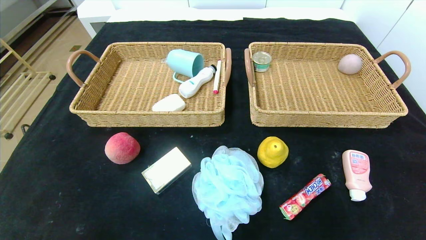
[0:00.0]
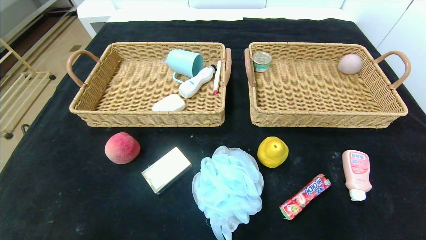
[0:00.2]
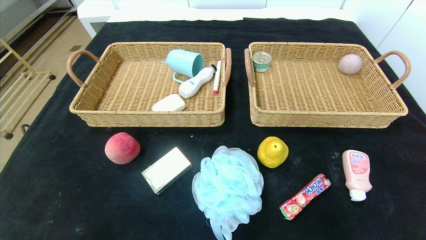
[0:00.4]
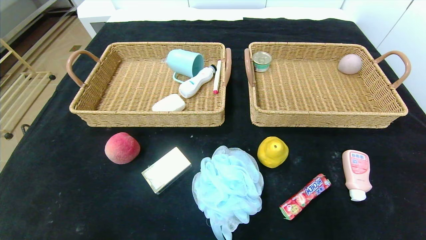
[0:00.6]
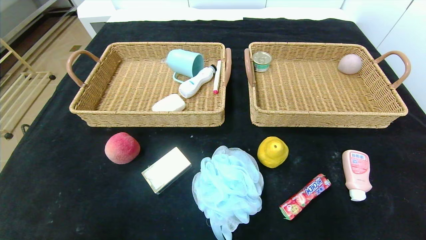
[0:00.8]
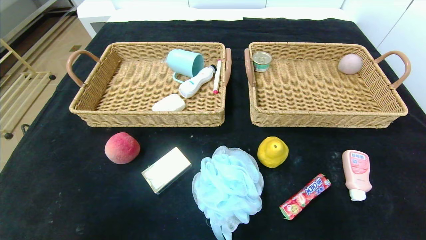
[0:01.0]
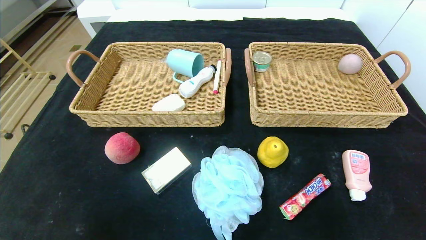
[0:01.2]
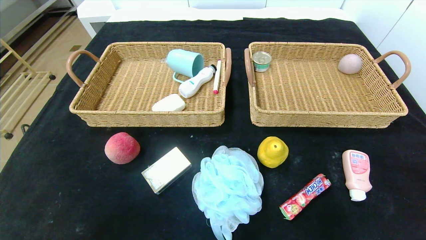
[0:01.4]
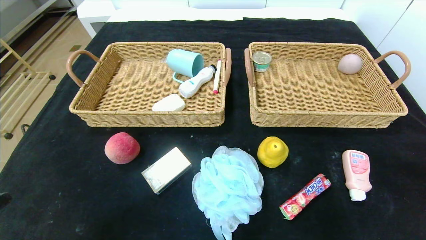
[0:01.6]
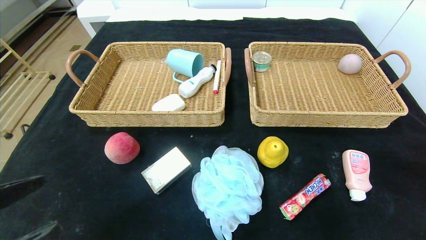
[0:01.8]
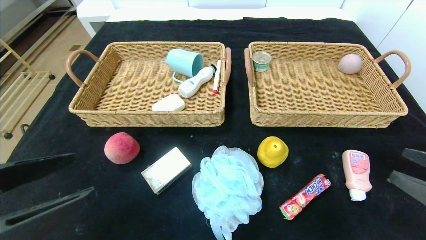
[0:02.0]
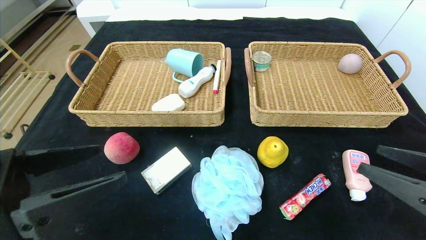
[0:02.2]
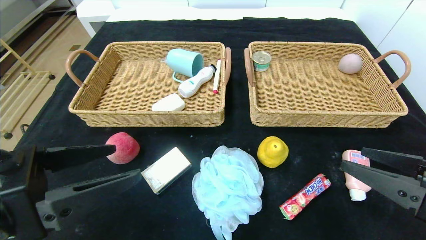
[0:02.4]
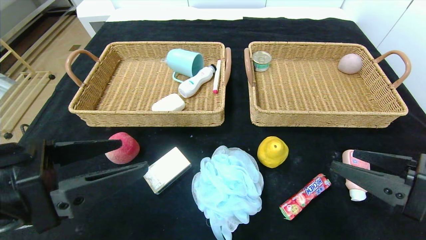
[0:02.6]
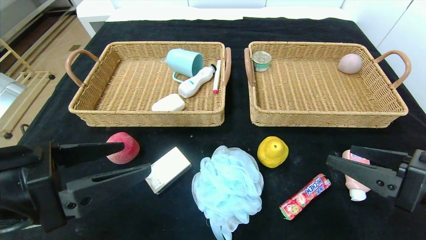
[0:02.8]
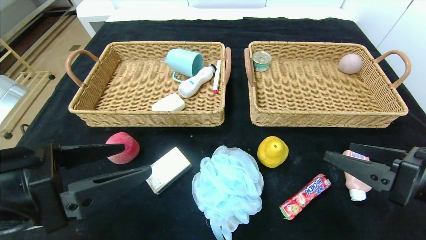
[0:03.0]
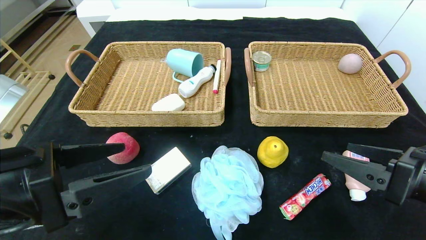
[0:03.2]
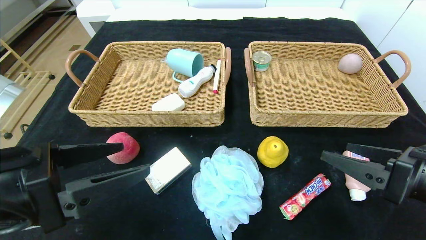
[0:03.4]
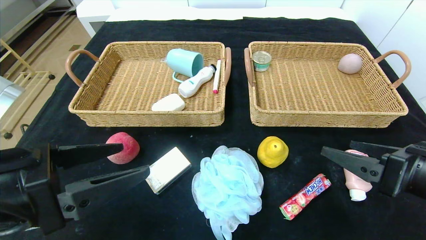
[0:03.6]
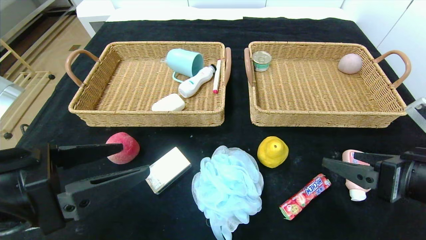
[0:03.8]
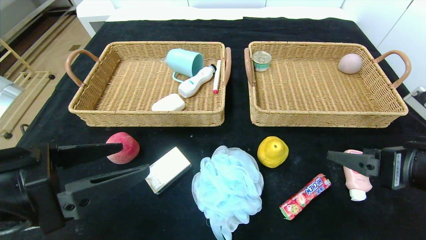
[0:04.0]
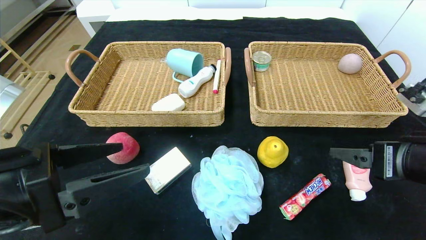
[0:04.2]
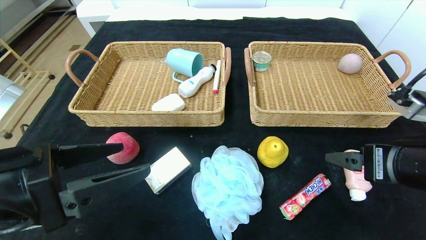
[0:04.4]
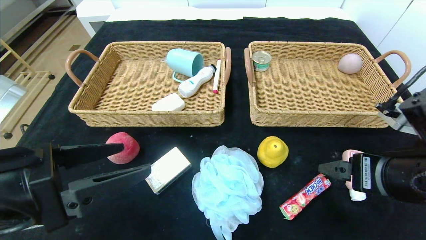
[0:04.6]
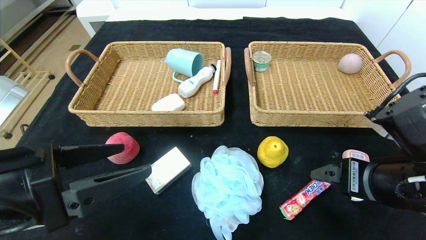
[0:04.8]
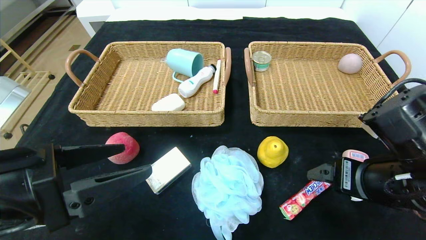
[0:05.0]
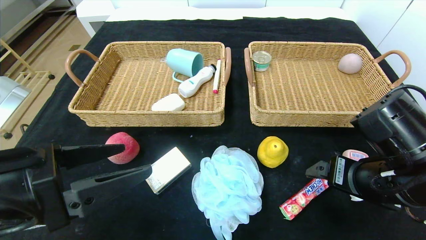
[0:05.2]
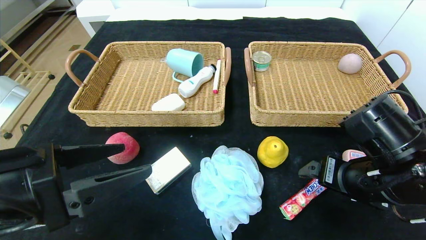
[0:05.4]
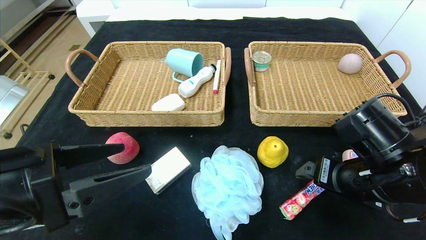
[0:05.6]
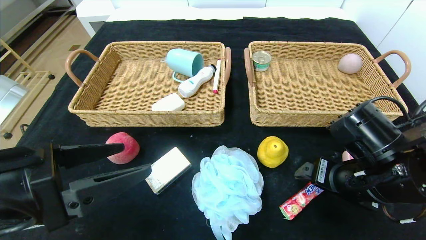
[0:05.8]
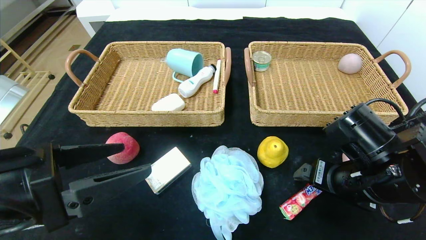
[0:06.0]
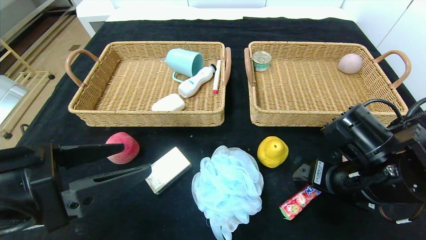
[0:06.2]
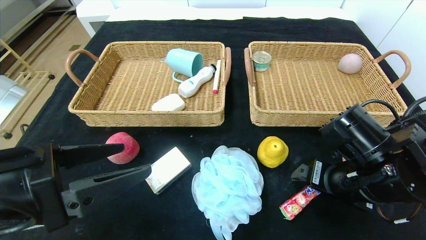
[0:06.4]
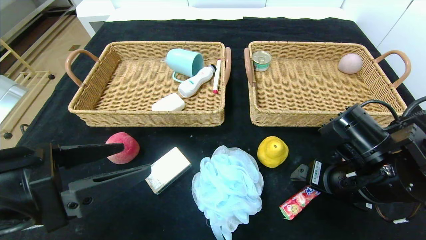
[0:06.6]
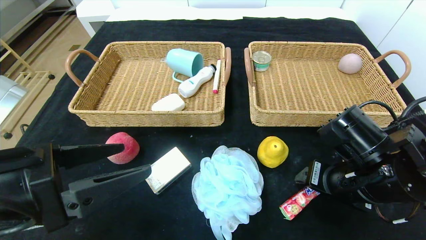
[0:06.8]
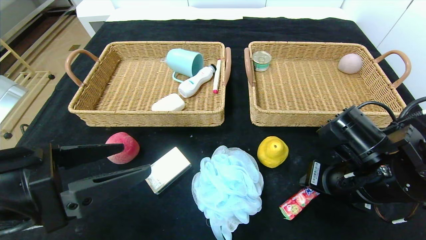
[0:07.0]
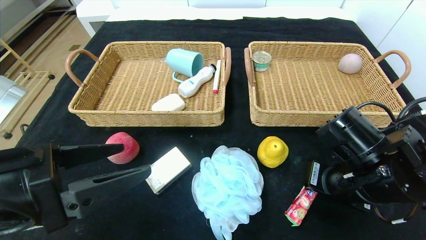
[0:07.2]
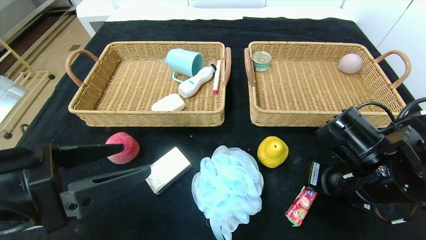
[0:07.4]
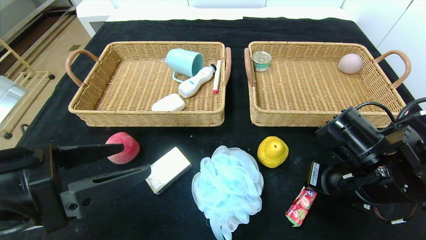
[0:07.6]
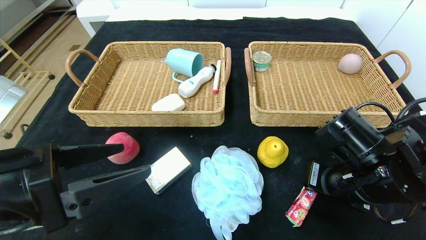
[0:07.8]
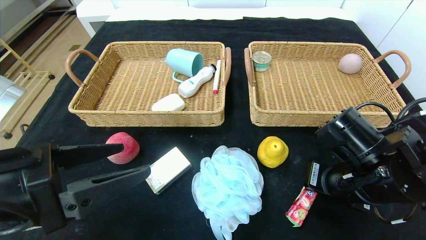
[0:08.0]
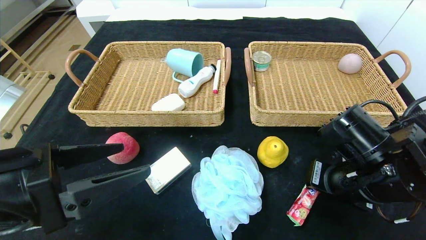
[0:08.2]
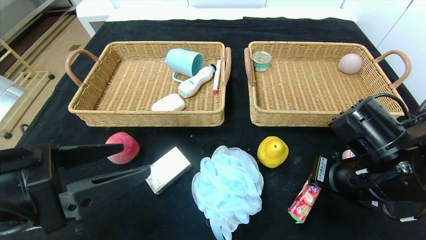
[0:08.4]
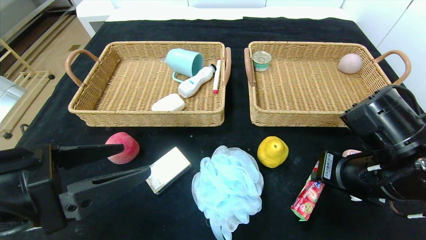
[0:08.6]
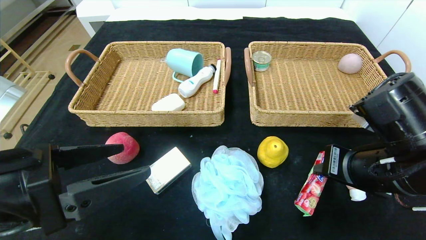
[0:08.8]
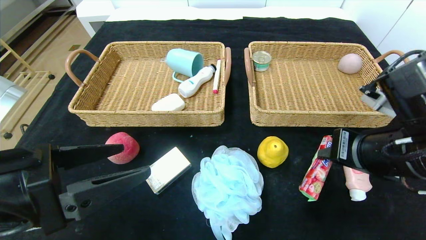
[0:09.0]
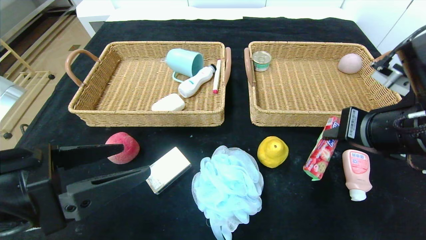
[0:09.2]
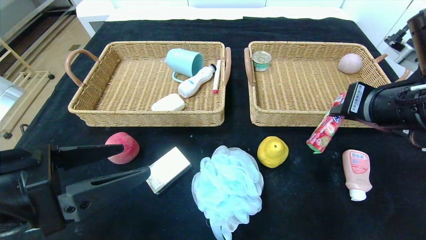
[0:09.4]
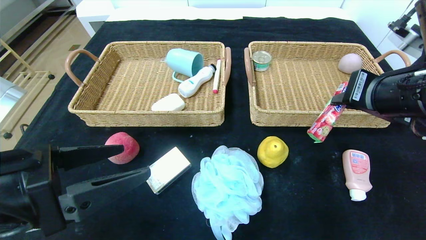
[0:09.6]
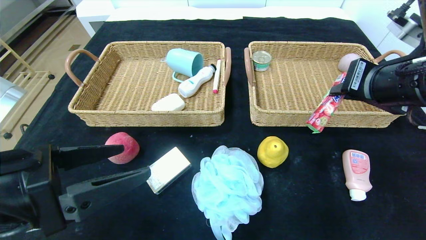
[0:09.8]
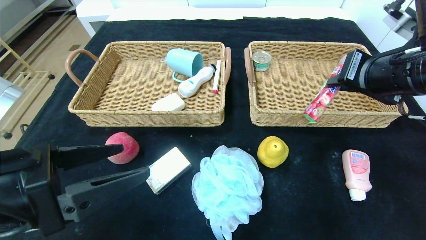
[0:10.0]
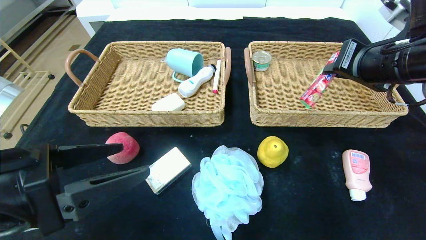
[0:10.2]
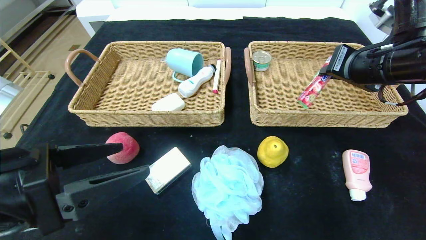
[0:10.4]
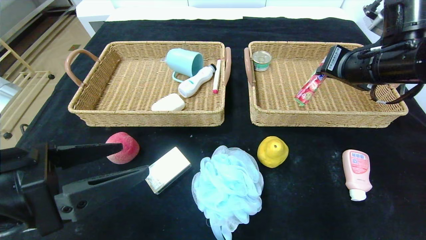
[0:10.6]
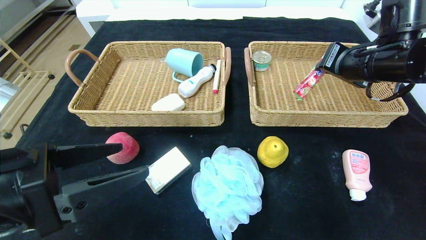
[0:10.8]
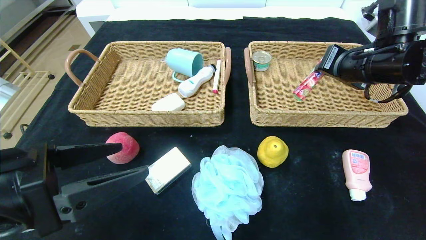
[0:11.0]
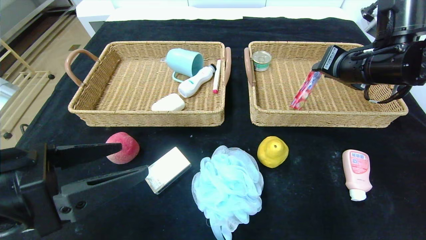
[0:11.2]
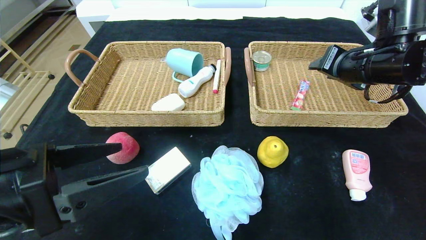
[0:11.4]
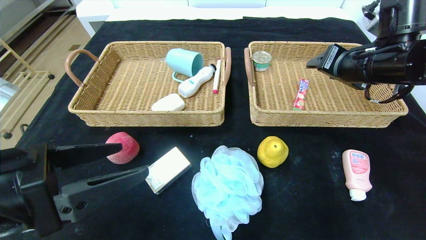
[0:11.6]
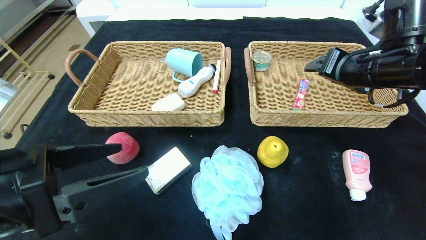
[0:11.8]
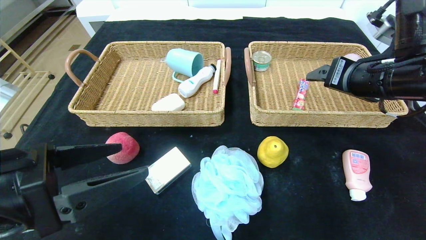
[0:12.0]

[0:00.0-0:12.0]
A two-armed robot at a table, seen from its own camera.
0:01.6 to 0:03.0: The left gripper travels forward and to the right by approximately 10 cm. The right gripper is displaced forward and to the left by roughly 15 cm.
0:04.4 to 0:06.0: The right gripper shifts about 5 cm downward.
0:06.0 to 0:07.6: The right gripper closes up.
0:07.6 to 0:09.0: The right gripper travels upward by about 5 cm.
0:09.0 to 0:10.4: The right gripper is displaced forward and upward by approximately 10 cm.
0:10.4 to 0:12.0: The right gripper opens.

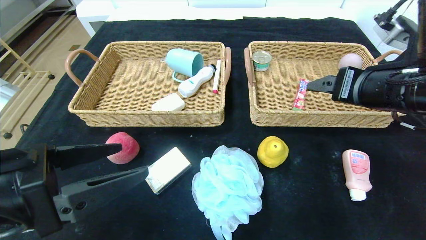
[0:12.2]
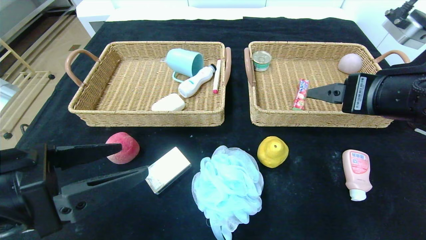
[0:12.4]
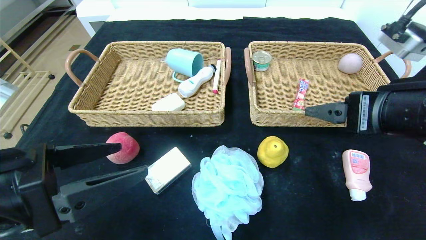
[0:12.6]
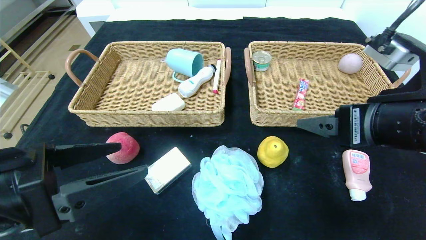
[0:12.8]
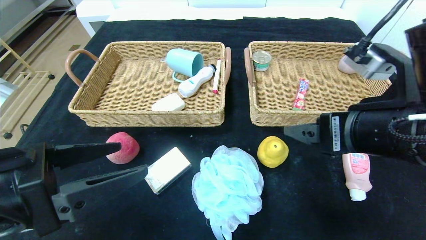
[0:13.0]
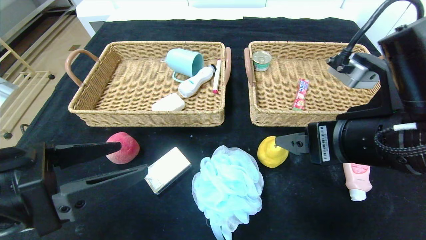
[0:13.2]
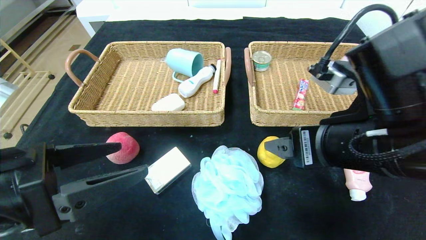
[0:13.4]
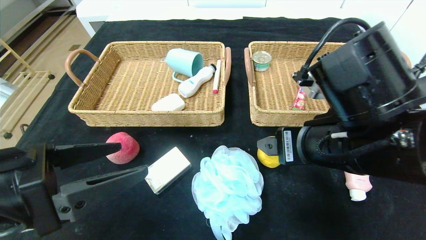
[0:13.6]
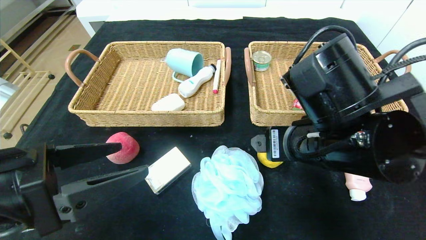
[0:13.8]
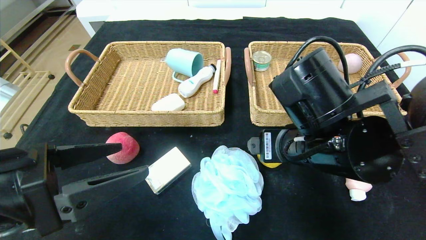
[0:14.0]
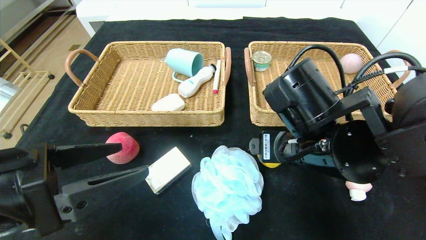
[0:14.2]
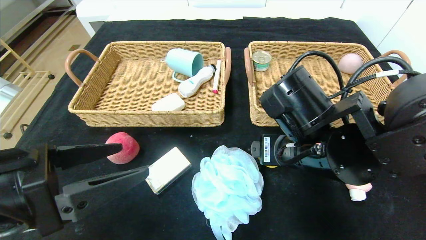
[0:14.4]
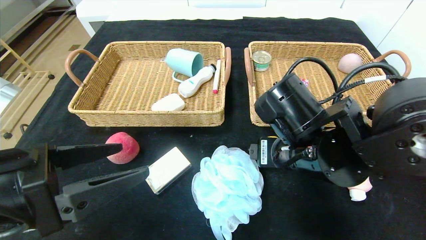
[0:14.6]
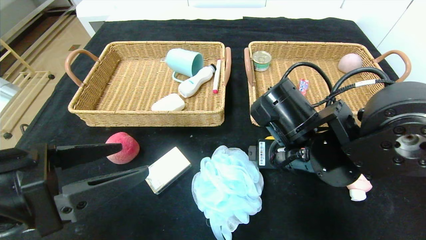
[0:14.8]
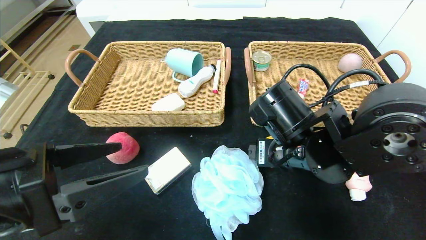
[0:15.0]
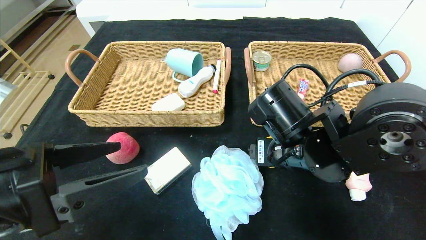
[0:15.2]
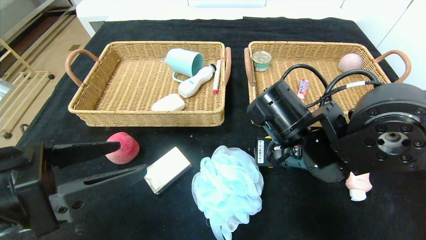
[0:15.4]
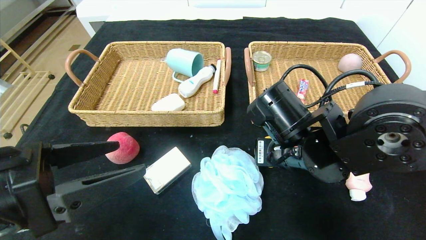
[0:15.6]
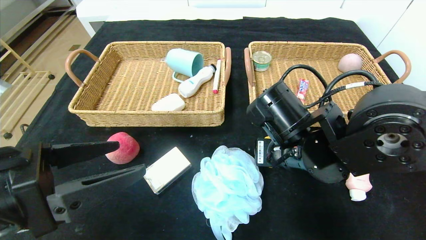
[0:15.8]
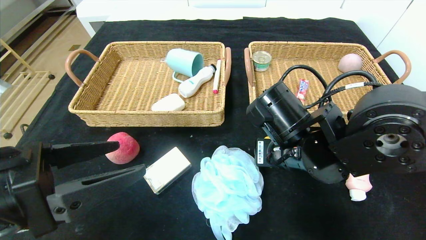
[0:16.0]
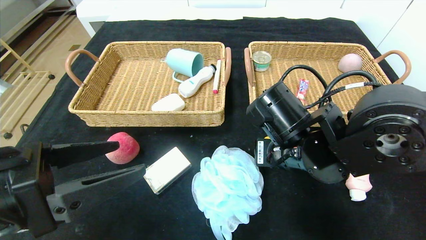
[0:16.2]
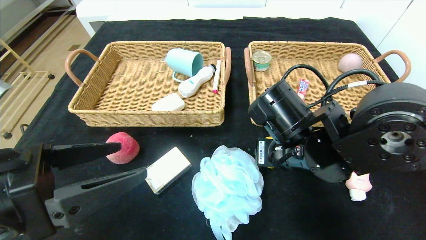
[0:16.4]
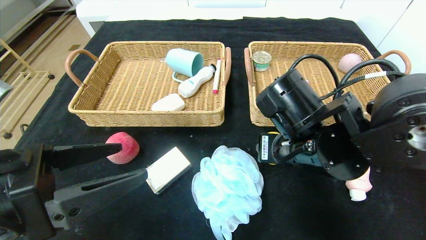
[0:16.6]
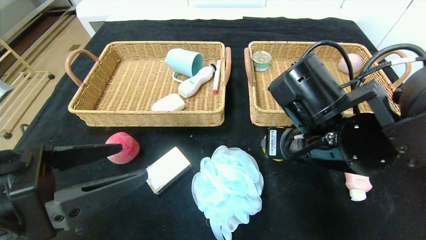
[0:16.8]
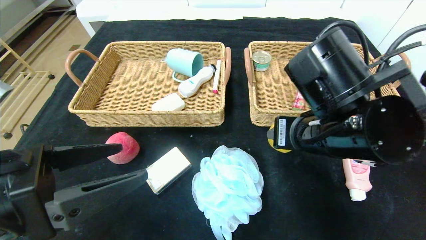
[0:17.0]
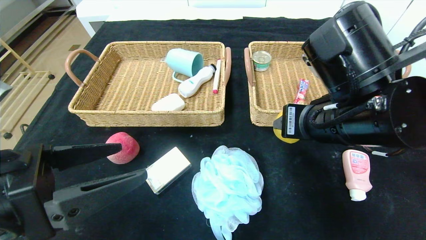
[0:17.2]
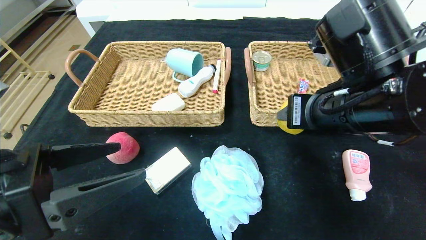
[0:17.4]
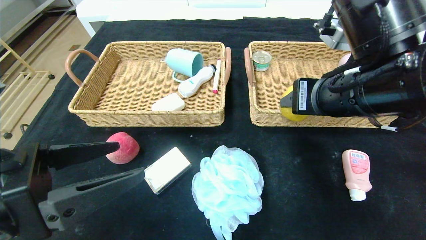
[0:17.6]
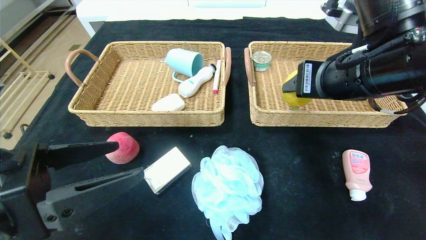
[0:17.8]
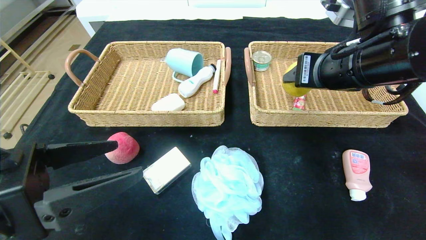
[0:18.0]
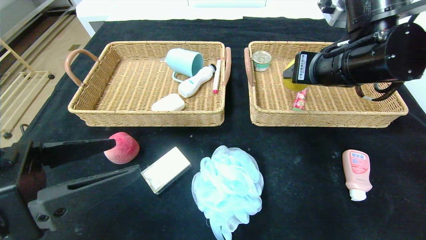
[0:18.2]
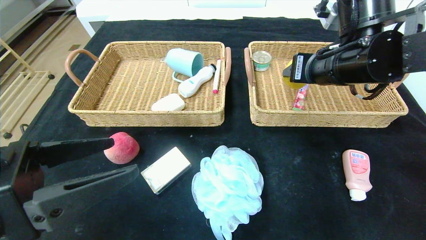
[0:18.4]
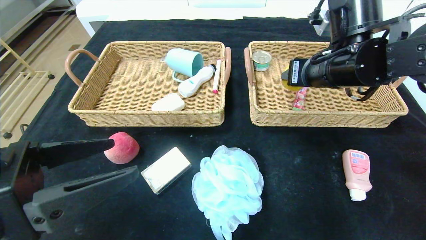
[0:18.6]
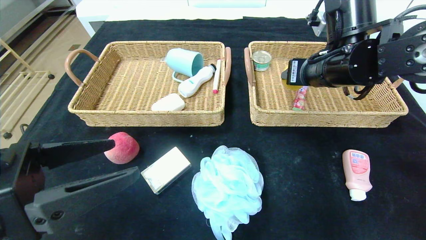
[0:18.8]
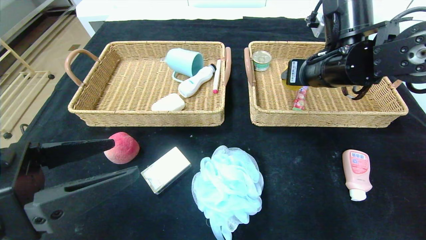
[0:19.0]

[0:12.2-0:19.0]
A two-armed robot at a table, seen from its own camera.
0:12.2 to 0:13.6: The right gripper goes approximately 10 cm to the left.
0:13.6 to 0:15.0: The right gripper changes place by roughly 5 cm.
0:15.0 to 0:16.2: The right gripper closes.
0:16.2 to 0:17.6: The right gripper heads upward and to the right, covering some 10 cm.
0:17.6 to 0:19.0: The right gripper shifts some 10 cm forward.
